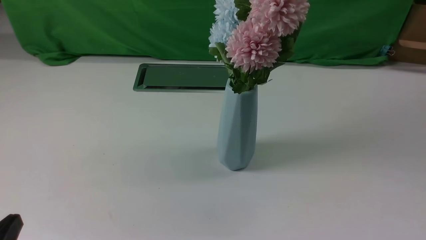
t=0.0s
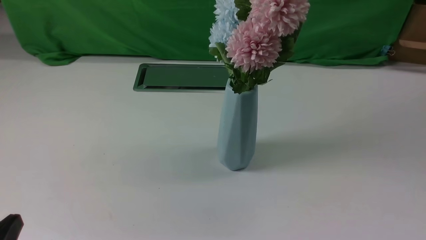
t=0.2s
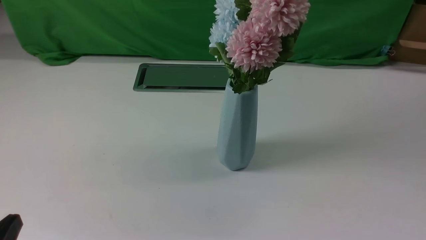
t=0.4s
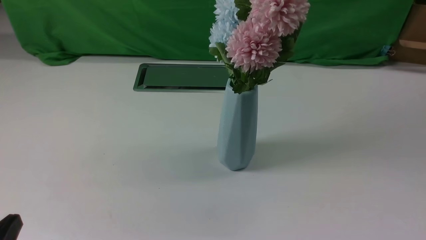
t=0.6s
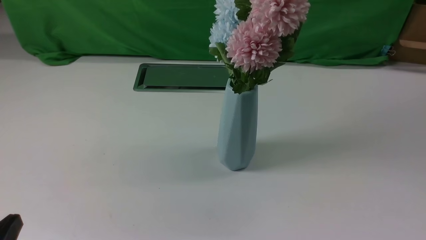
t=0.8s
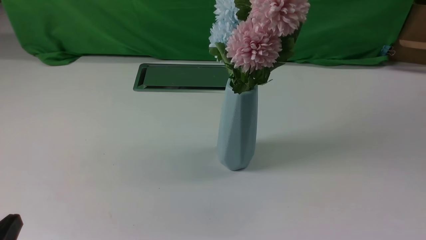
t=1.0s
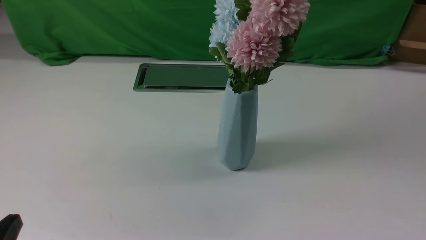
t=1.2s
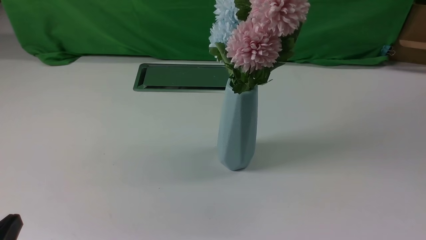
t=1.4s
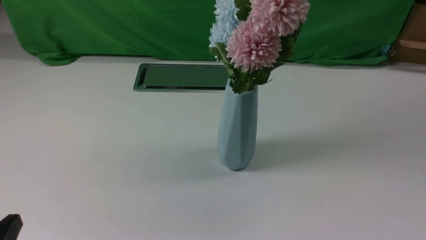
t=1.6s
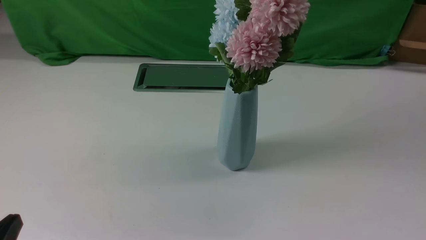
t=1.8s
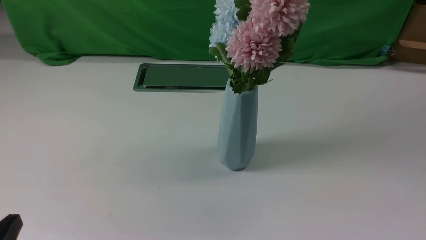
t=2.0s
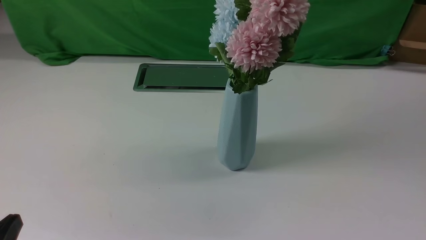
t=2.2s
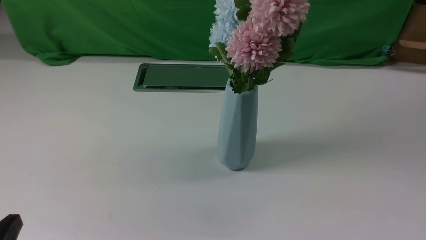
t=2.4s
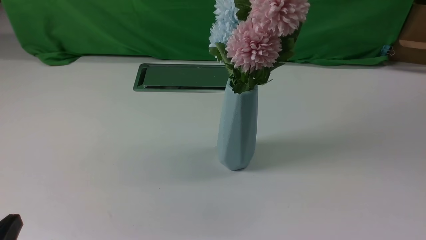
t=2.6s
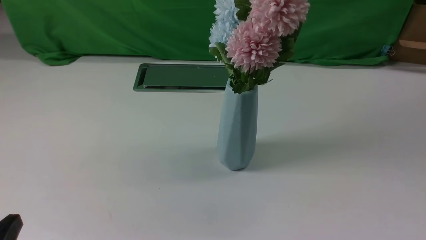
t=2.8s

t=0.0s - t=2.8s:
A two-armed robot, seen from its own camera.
Task of the whole recording: insert the flowers into the vase on the white table.
t=1.4s - t=2.8s: Both grippers stay put.
